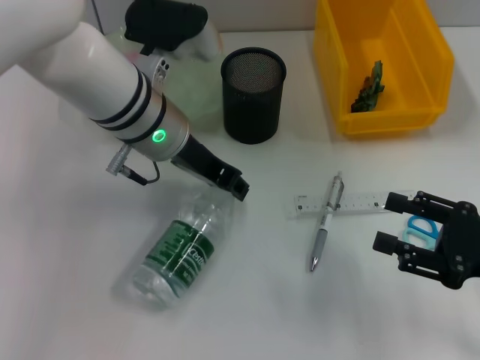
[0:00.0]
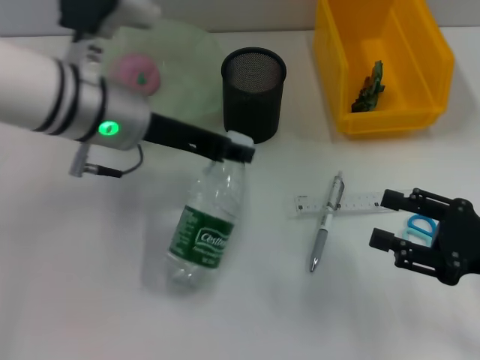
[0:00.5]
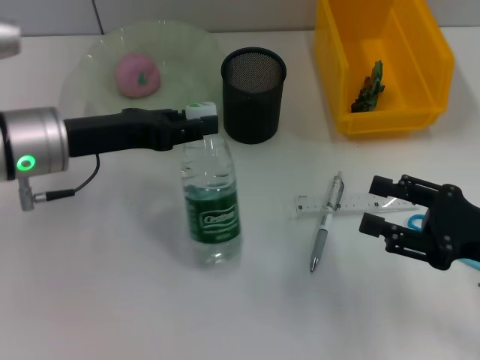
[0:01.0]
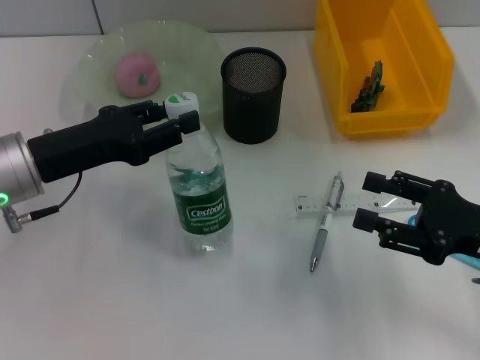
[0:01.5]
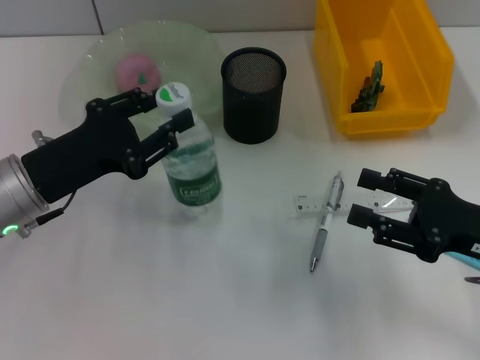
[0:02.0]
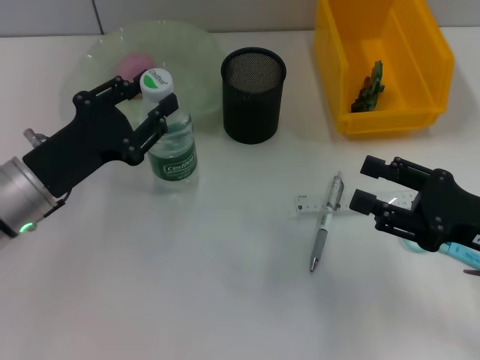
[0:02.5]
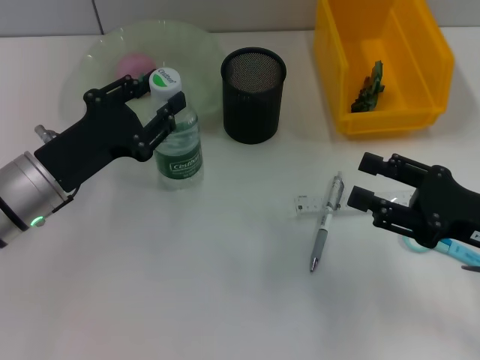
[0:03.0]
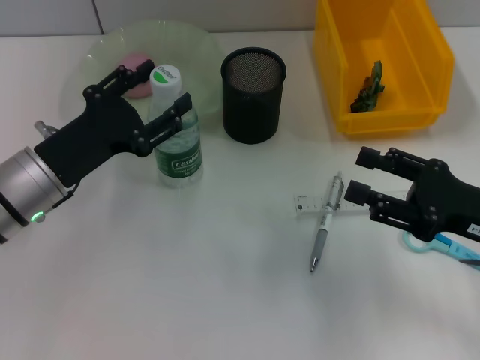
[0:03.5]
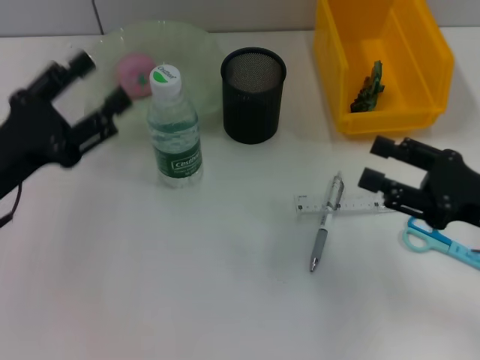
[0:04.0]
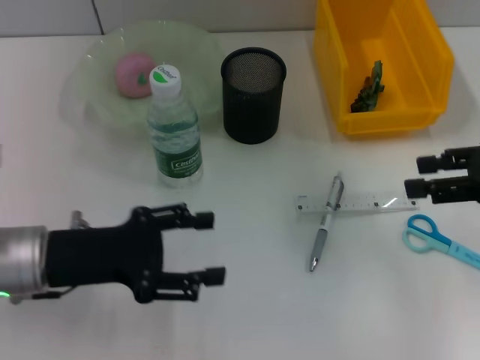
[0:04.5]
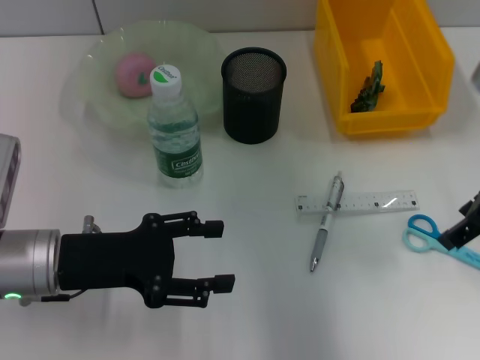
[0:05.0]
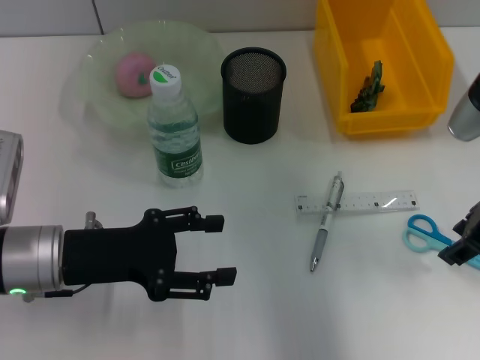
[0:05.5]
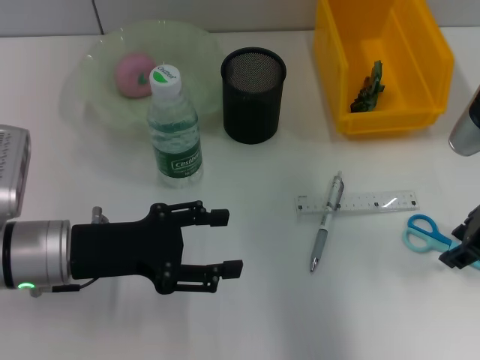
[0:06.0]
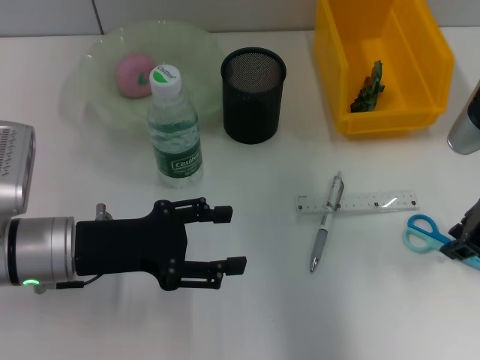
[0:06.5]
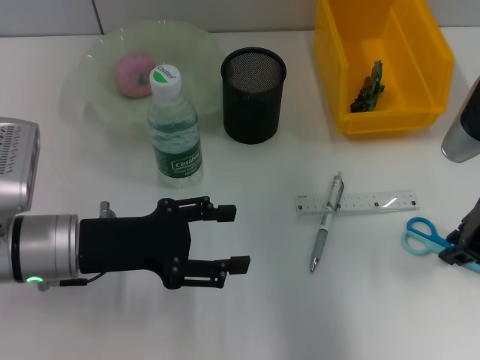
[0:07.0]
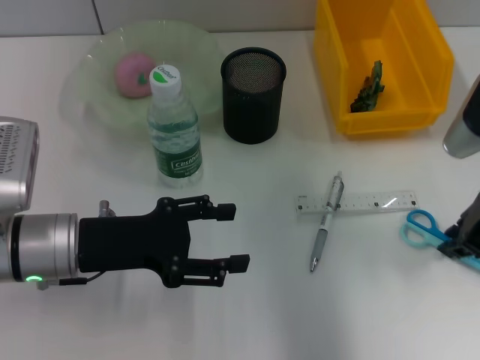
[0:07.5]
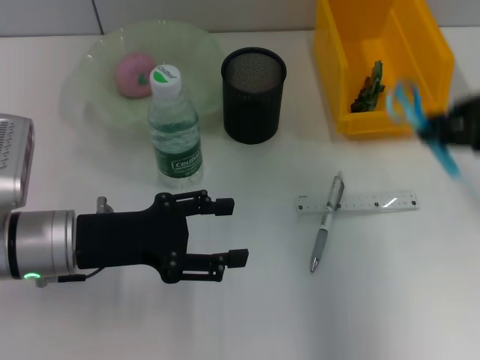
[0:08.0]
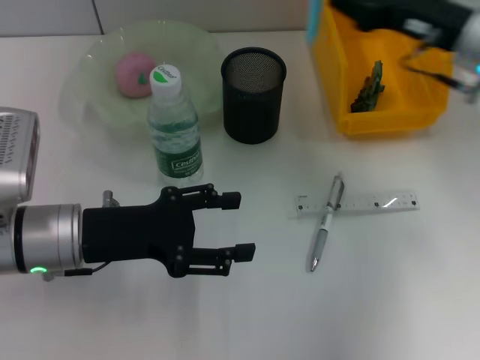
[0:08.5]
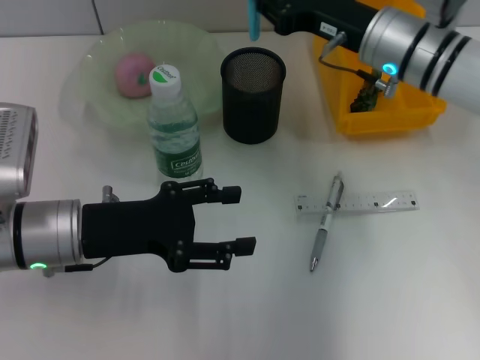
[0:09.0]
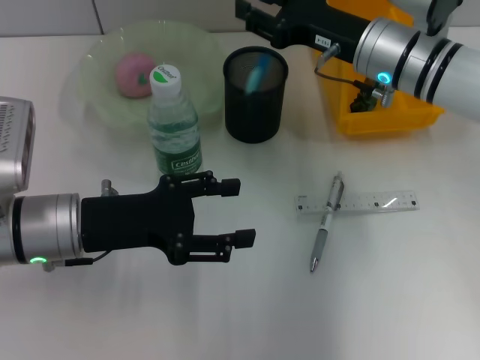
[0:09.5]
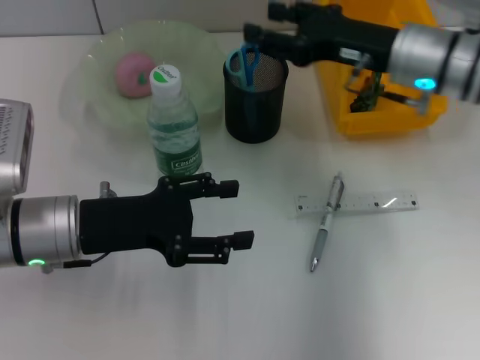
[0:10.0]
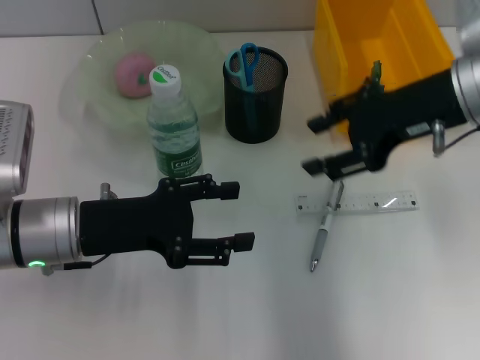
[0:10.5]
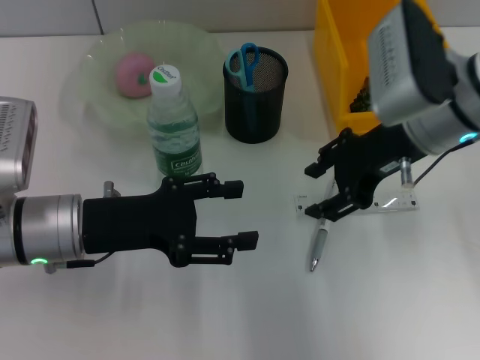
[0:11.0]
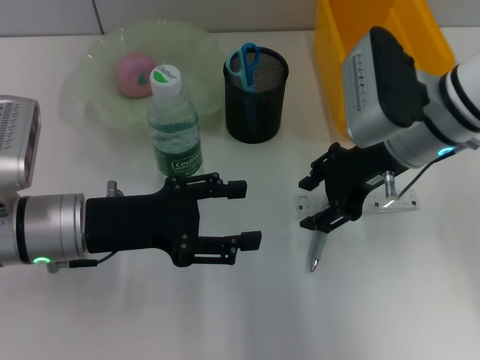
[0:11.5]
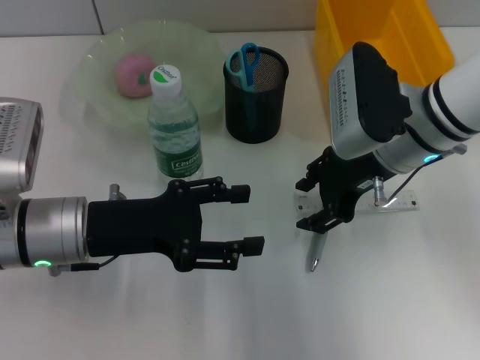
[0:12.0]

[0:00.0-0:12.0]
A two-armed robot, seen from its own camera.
Step, 0:00.0 to 0:03.0: Place the water bottle on the table with the left hand.
Step, 0:03.5 to 0:07.0: Grab the blue scissors with the right hand.
Step, 0:07.5 to 0:09.5: Place the blue scissors into the pen holder with the right hand.
0:00.0 to 0:02.0: The left gripper travels to the left and backward by some 15 cm.
0:02.0 to 0:04.0: The left gripper opens.
0:04.0 to 0:06.0: The left gripper shifts some 5 cm to the right. Meanwhile the right gripper goes roughly 10 cm forward and upward.
0:06.0 to 0:08.0: The right gripper goes approximately 10 cm upward, and closes.
0:08.0 to 0:10.0: The right gripper is displaced to the left, downward and forward by about 15 cm, and opens up.
0:10.0 to 0:12.0: The right gripper moves roughly 5 cm.

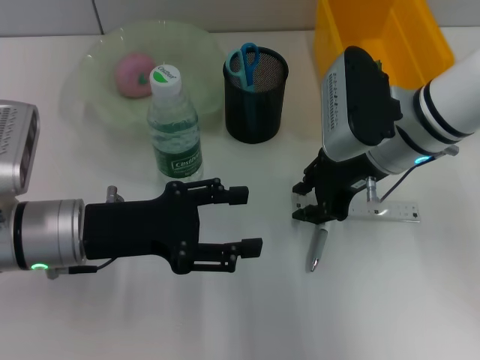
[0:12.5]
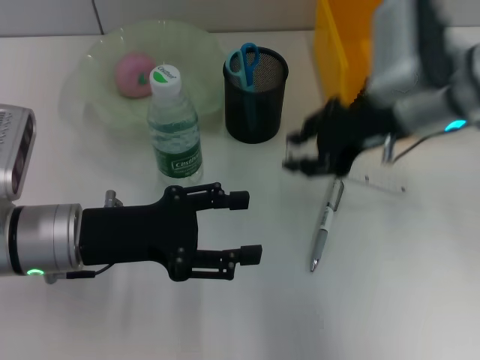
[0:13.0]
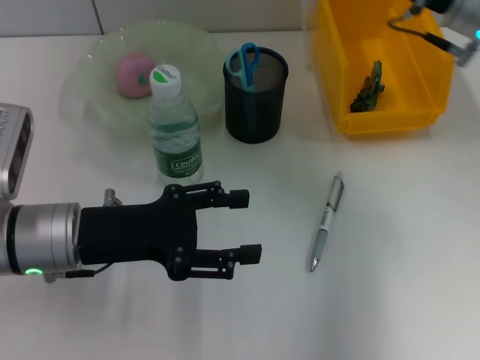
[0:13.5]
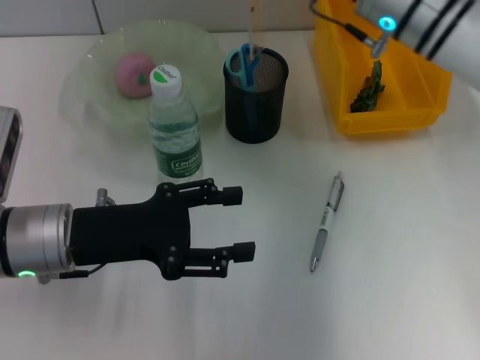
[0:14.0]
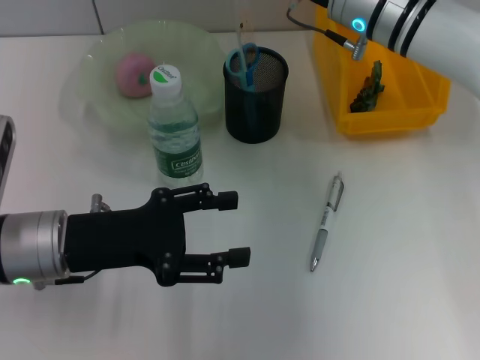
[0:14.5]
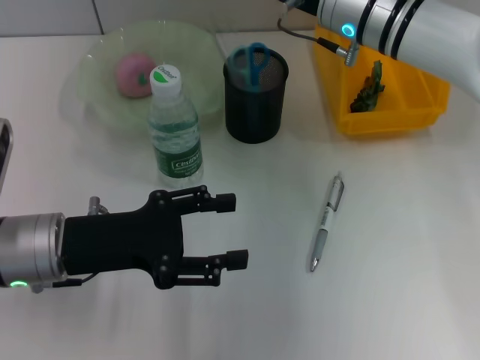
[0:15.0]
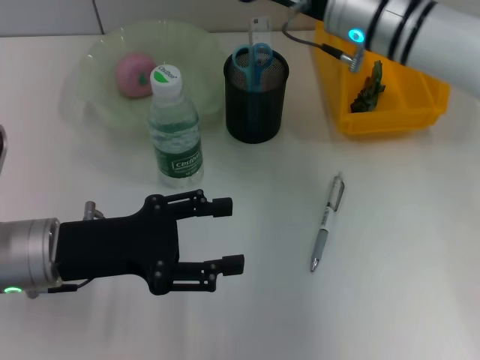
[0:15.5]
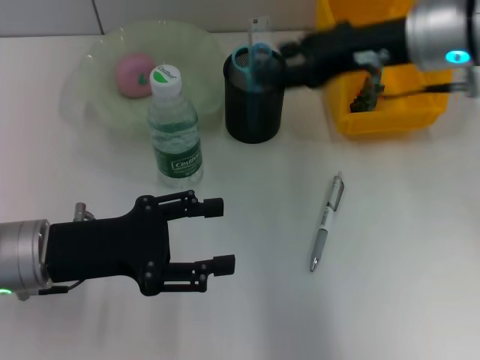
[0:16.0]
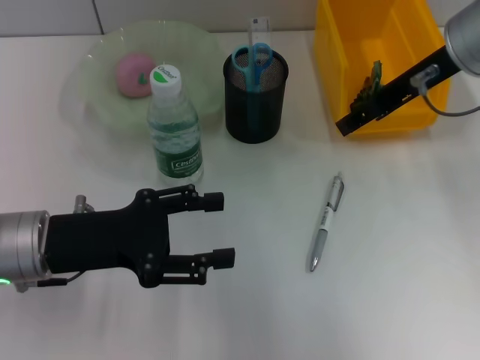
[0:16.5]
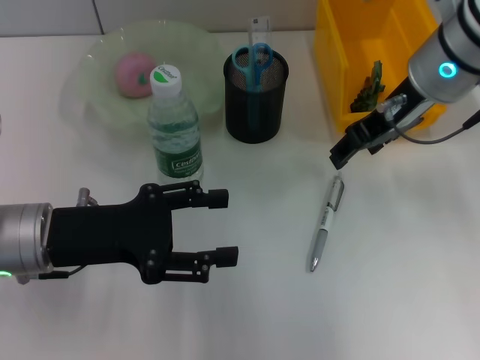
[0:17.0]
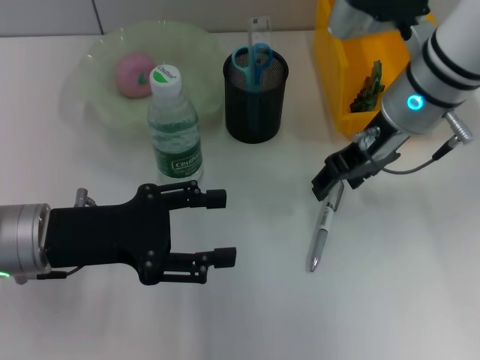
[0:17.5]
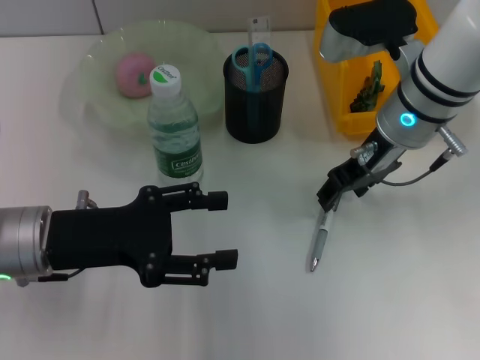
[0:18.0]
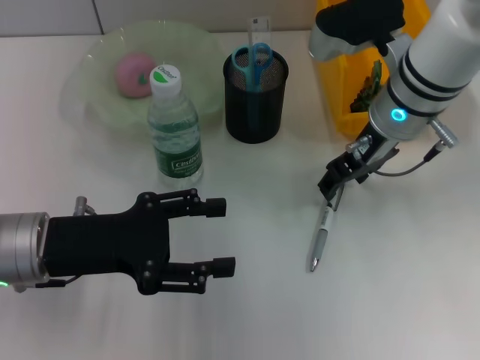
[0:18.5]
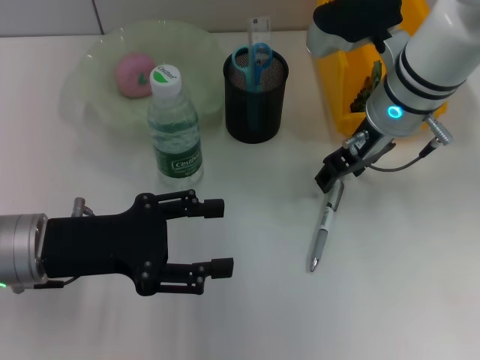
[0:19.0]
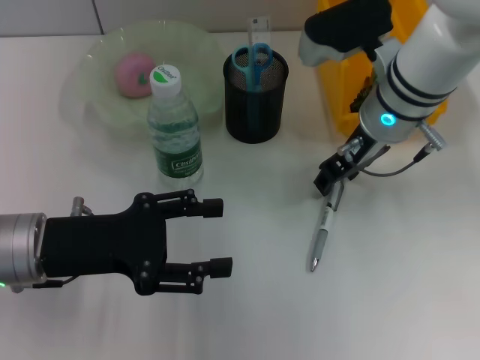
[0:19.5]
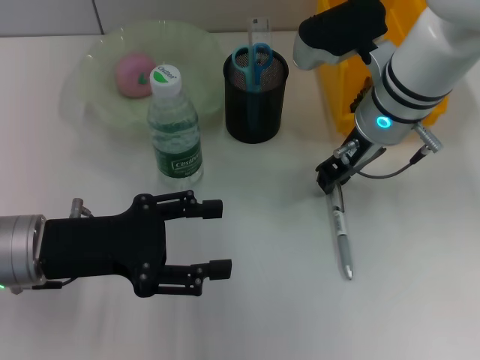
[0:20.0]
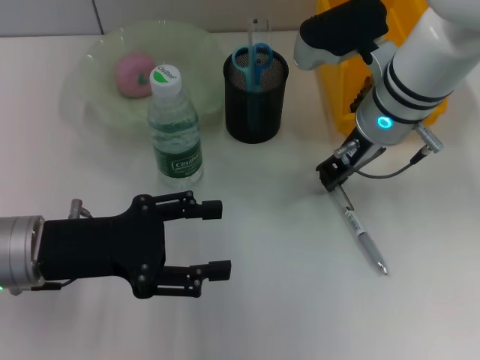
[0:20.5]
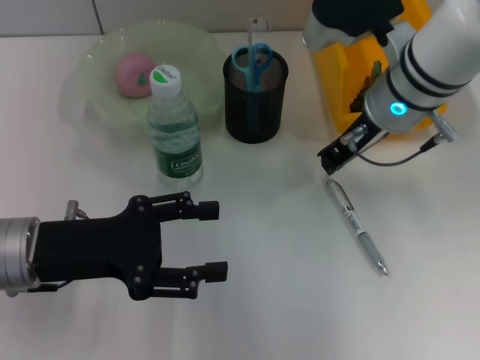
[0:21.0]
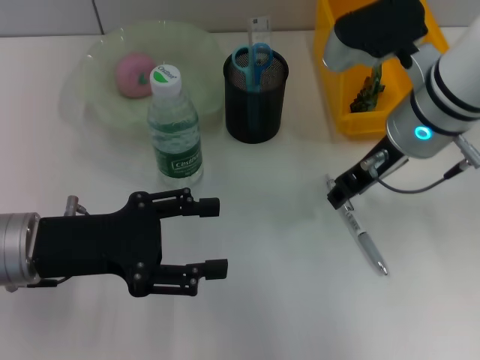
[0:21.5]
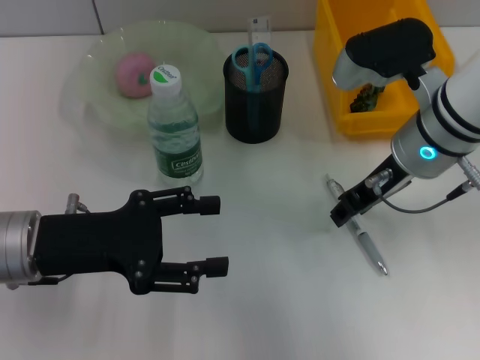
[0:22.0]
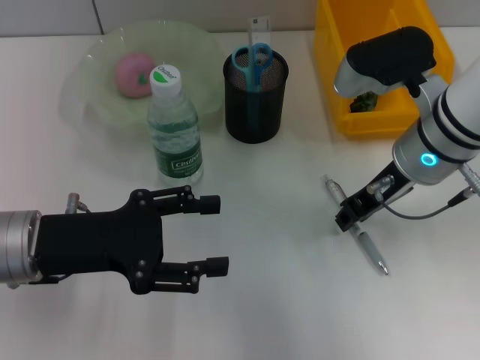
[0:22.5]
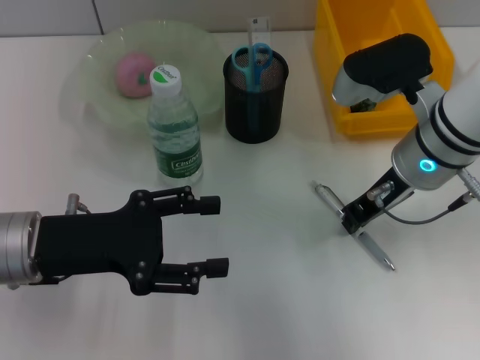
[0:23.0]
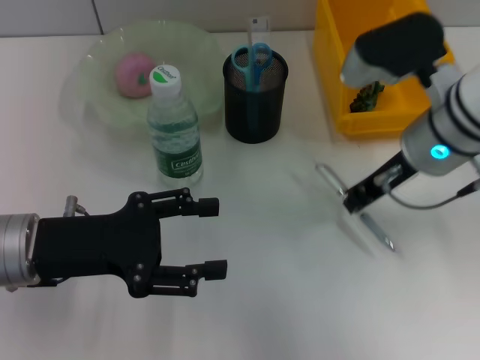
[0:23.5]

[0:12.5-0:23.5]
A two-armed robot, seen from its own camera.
Step, 0:13.0 to 0:15.0: Place the ruler into the pen holder with the right hand.
Step, 0:15.5 to 0:23.0: Grab the gray spring-action pen with the right hand.
0:12.5 to 0:14.5: The right gripper is displaced forward by some 5 cm, and moves approximately 5 cm to the right and comes back.
0:14.5 to 0:16.0: The right gripper moves backward, to the right and upward, about 10 cm.
0:16.0 to 0:18.0: The right gripper is displaced downward by roughly 5 cm.
0:18.0 to 0:20.0: The right gripper closes its fingers.
0:20.0 to 0:23.5: The grippers make only small movements.

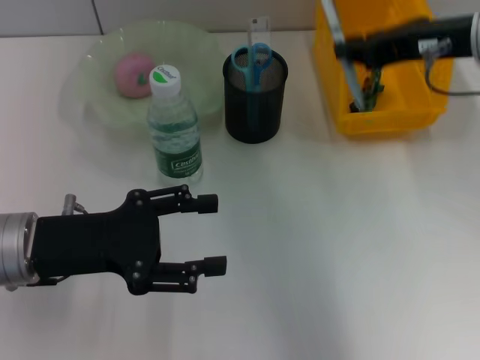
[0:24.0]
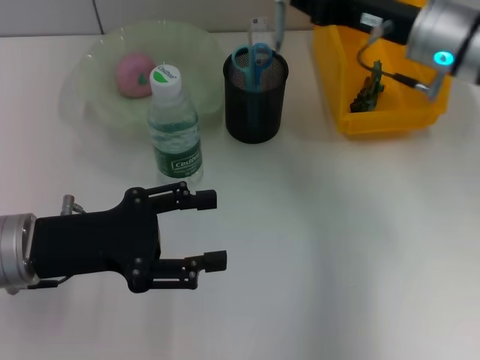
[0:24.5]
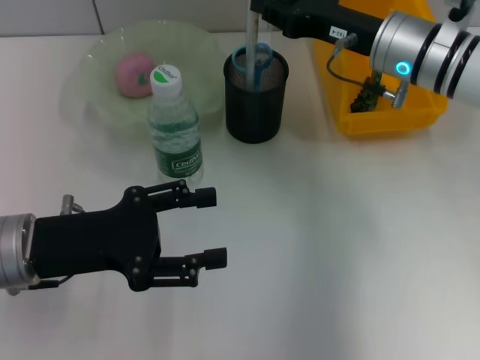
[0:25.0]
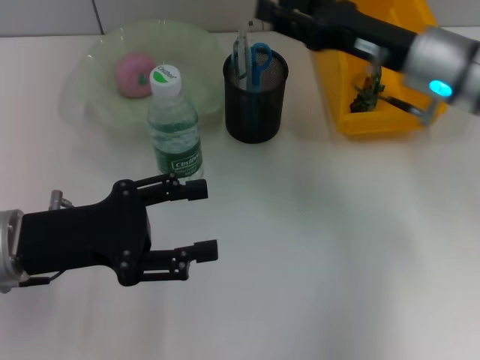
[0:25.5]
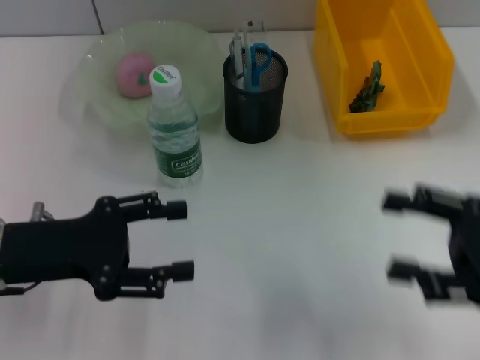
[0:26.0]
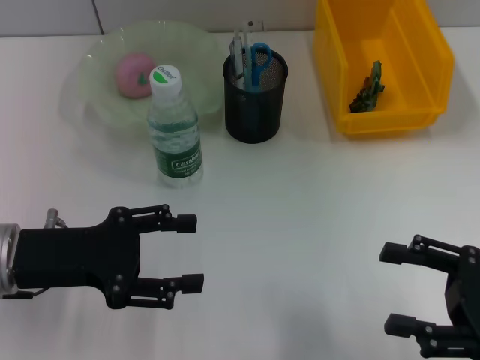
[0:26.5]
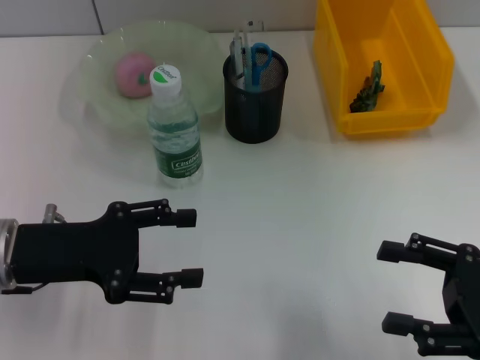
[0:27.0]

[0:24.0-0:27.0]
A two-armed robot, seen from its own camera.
0:24.0 to 0:25.5: The right gripper shifts about 10 cm downward, and opens up.
0:25.5 to 0:27.0: The right gripper shifts about 20 cm backward and to the right.
